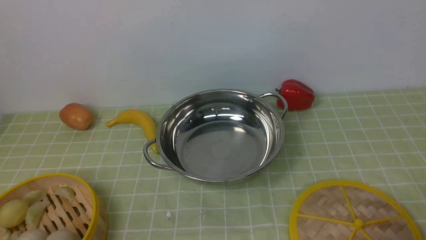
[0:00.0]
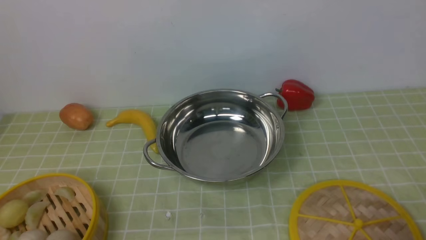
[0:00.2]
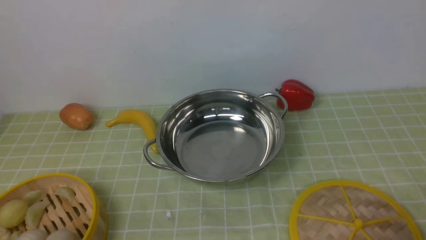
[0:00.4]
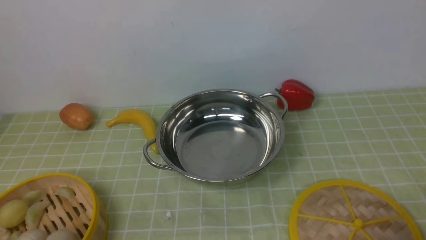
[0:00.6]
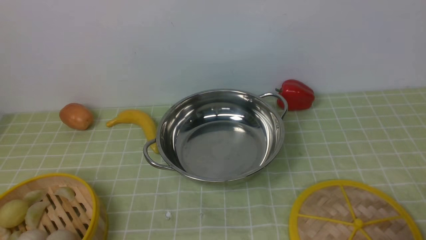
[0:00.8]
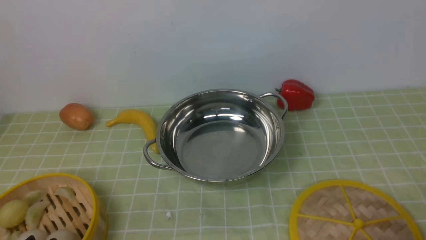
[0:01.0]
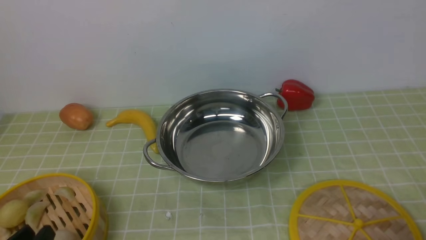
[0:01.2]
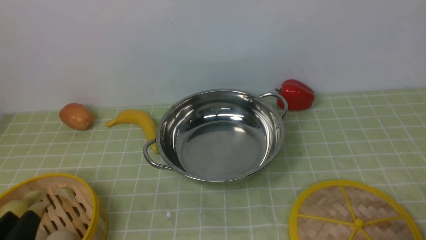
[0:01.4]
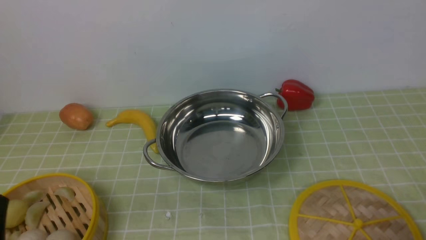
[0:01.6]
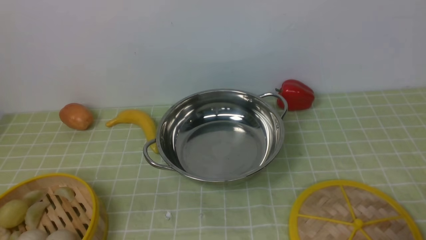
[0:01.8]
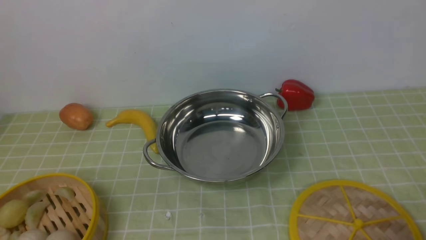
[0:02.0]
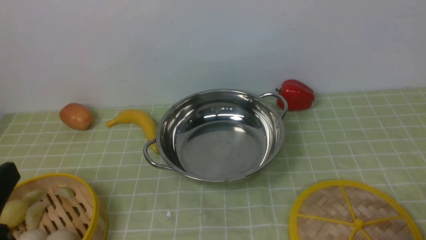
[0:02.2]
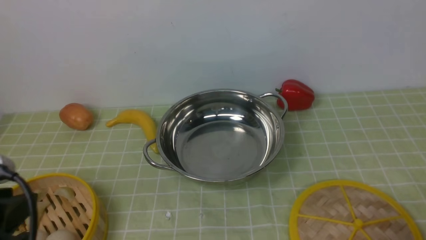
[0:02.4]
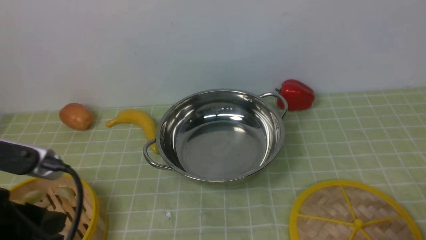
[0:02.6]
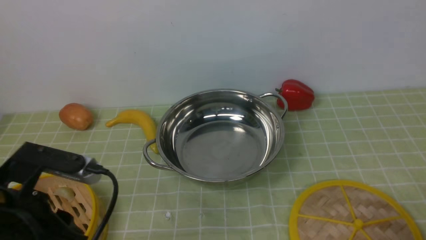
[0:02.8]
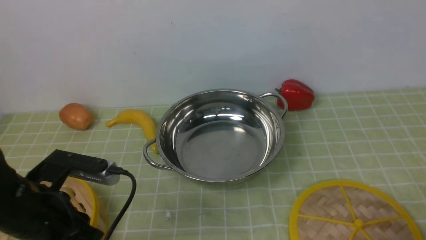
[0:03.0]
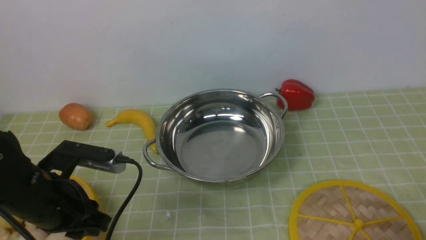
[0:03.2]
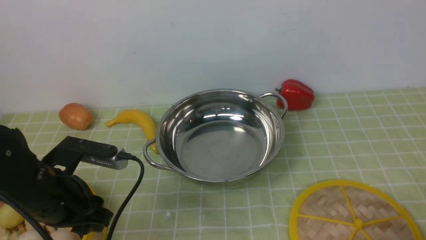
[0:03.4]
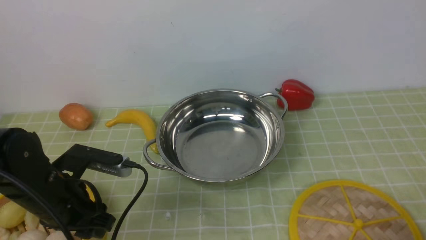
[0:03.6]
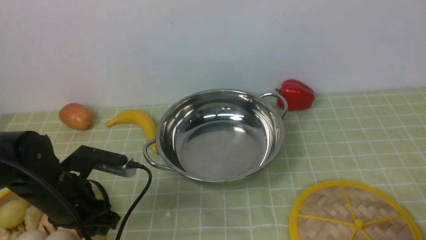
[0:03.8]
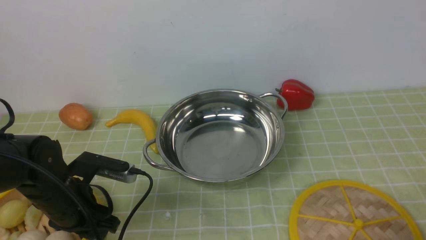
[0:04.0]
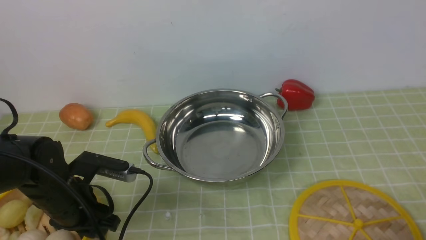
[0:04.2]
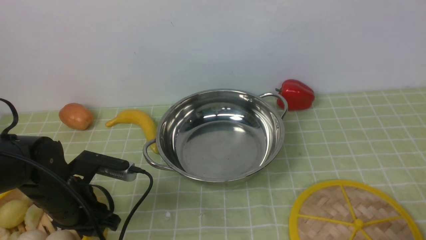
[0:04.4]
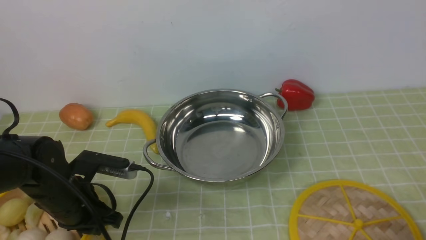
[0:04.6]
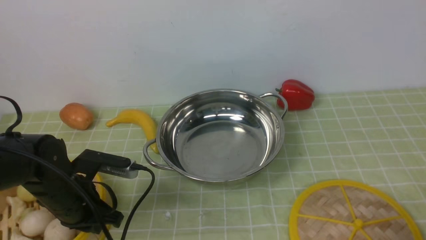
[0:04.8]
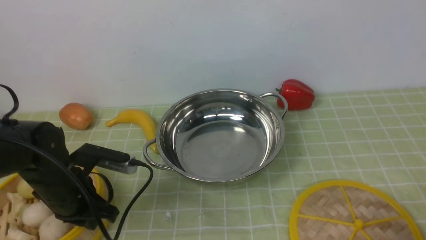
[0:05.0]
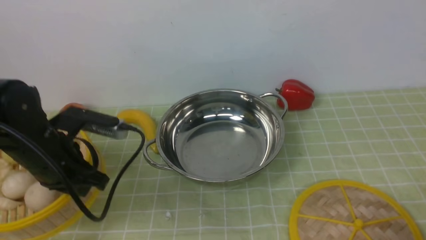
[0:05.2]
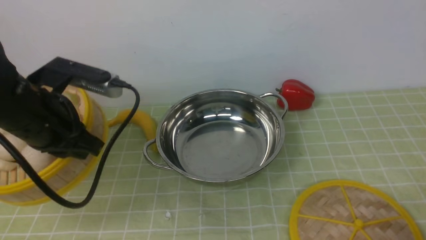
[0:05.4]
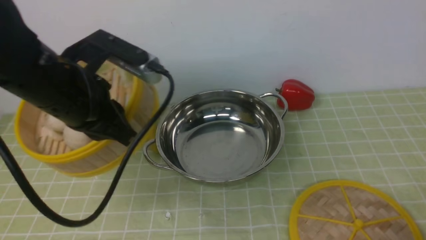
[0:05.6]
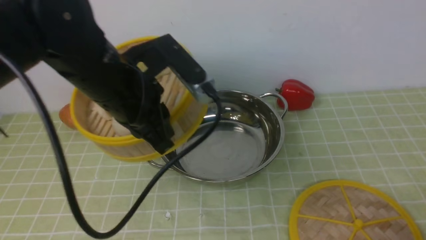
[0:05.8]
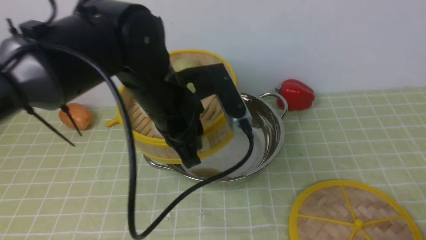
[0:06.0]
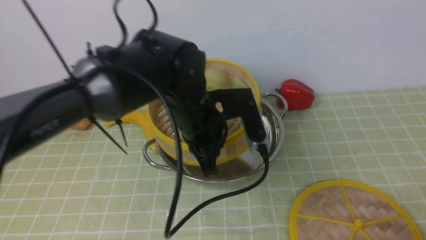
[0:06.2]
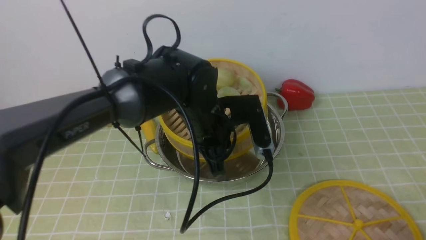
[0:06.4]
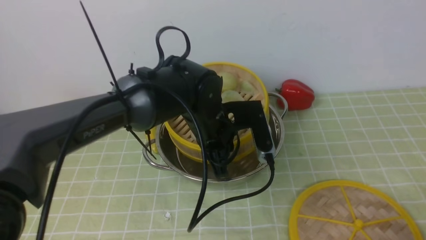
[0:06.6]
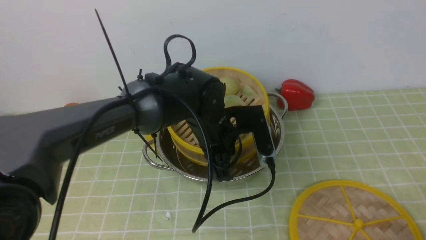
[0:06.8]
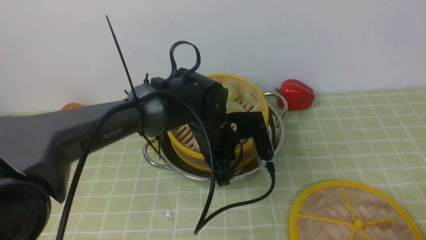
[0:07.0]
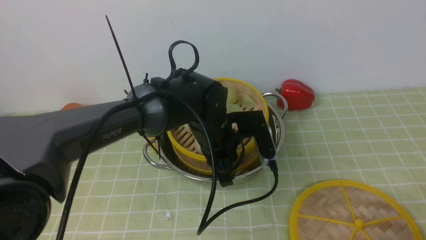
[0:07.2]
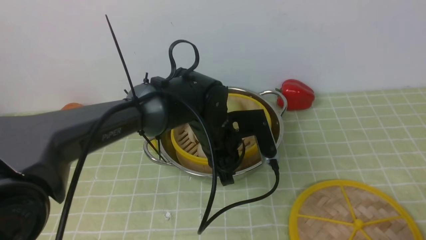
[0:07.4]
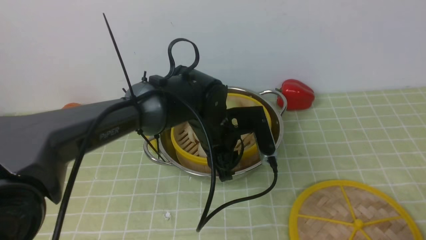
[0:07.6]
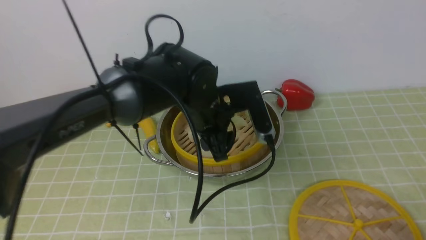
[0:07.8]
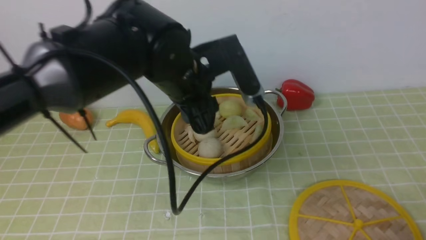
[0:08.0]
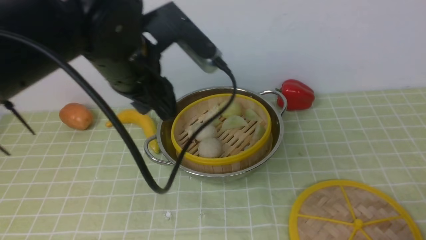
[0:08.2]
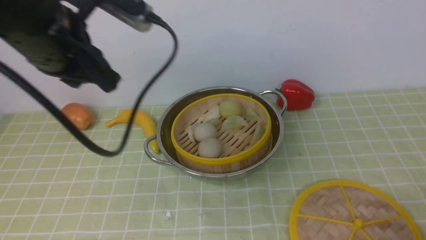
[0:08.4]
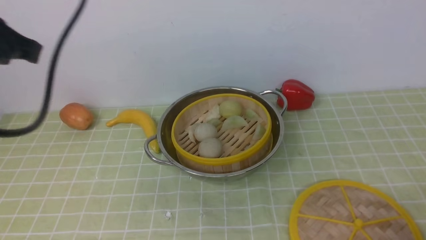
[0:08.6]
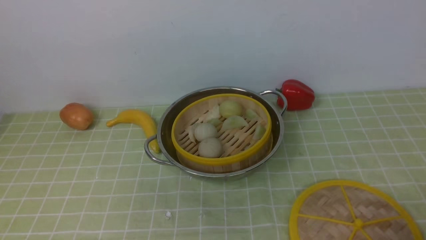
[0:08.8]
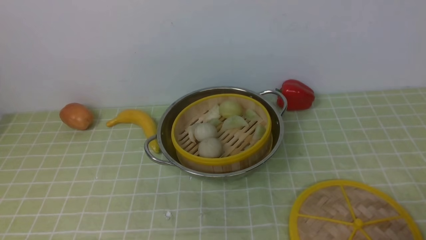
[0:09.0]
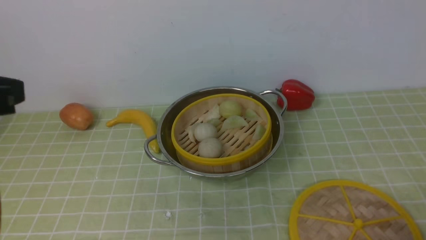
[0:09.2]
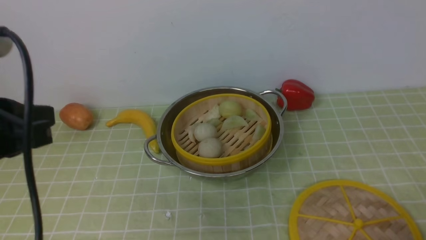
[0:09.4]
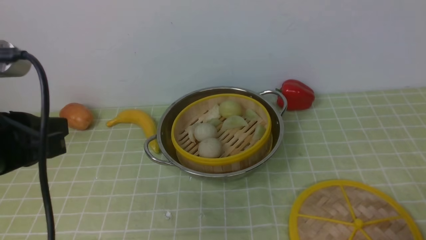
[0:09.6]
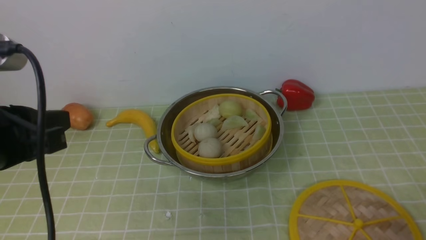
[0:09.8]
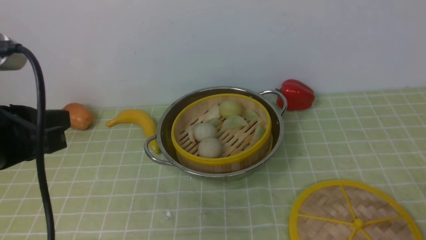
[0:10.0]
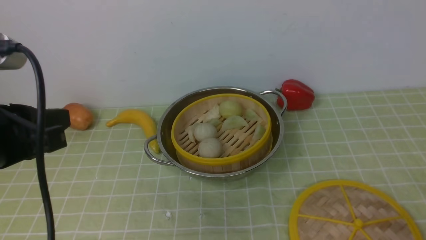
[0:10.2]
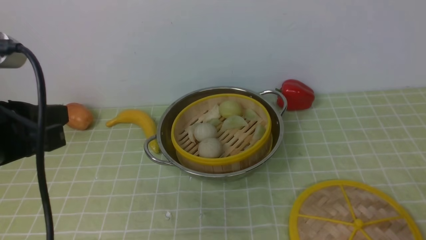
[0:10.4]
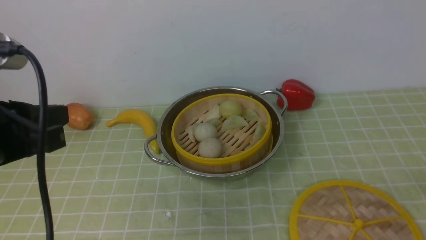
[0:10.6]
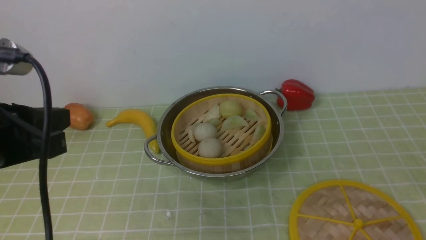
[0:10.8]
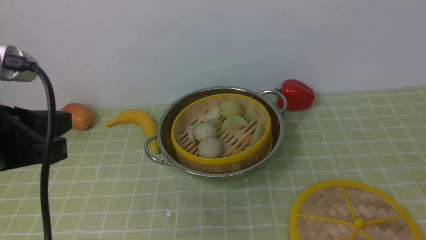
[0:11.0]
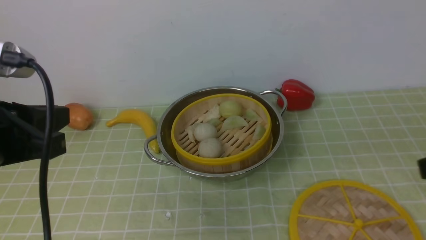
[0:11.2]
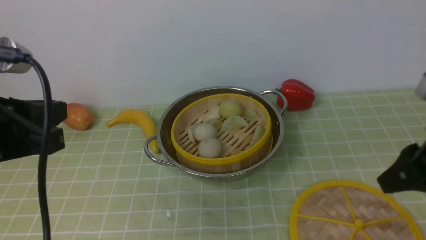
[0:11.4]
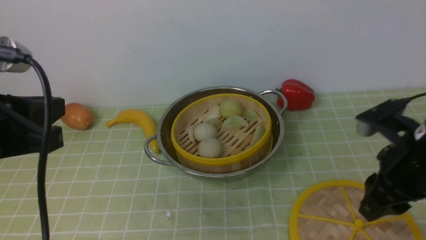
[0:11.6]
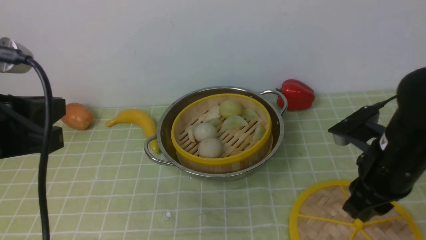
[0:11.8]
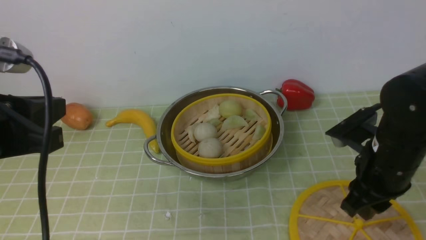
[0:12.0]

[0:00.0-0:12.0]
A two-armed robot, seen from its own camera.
Task of the whole recording: place the steamer in the pot on the green tablecloth, and put the lid on the steamer.
Step, 0:00.0 to 0:05.4: use the left arm to lift the steamer closest to it.
Step, 0:05.6 to 0:08.4: use the left arm to put the steamer into the iron steamer pot in the middle.
0:01.6 to 0:03.0: The left gripper travels forward by about 15 cm.
0:03.0 to 0:04.4: The left gripper moves downward and forward, about 10 cm.
0:04.4 to 0:06.0: The left gripper heads to the right and upward, covering some 20 cm, and closes.
0:06.0 to 0:07.6: The left gripper travels downward by about 10 cm, and opens up.
0:07.6 to 0:09.0: The left gripper shifts some 40 cm upward, to the left and backward, and closes.
0:09.0 to 0:10.4: The left gripper heads downward, covering approximately 10 cm.
0:10.4 to 0:12.0: The right gripper moves forward and to the left, some 25 cm.

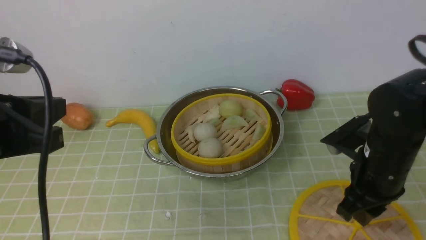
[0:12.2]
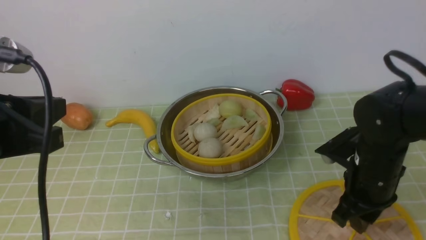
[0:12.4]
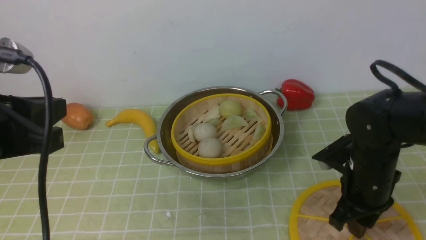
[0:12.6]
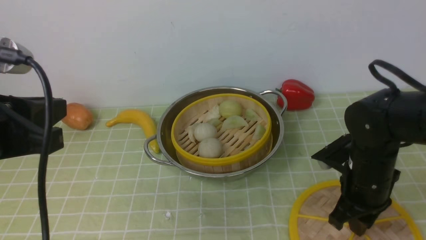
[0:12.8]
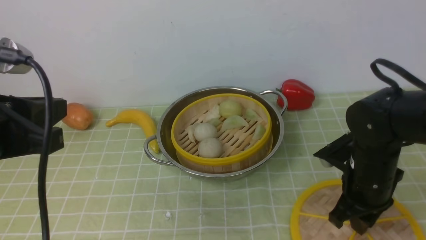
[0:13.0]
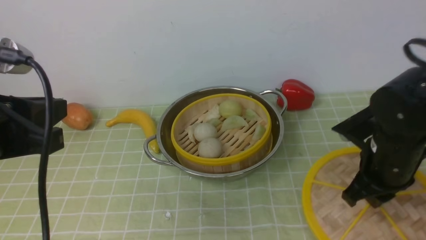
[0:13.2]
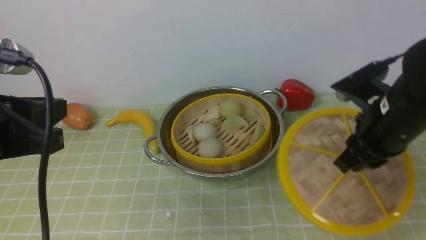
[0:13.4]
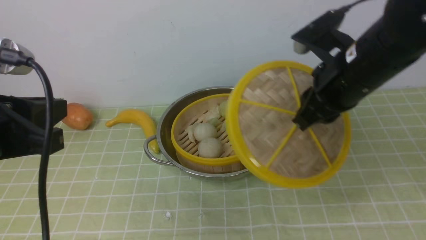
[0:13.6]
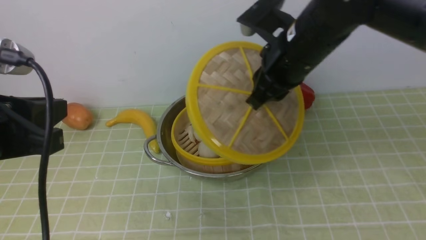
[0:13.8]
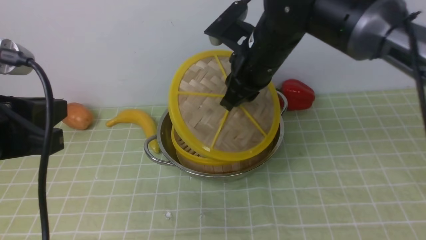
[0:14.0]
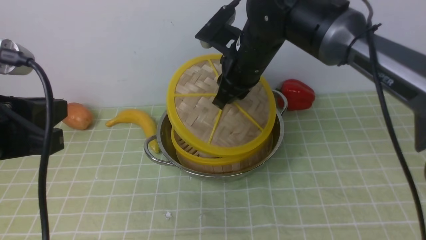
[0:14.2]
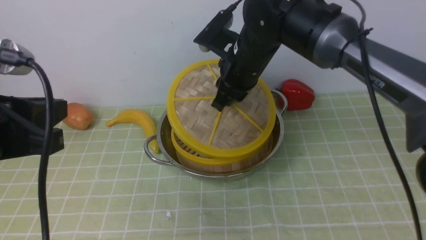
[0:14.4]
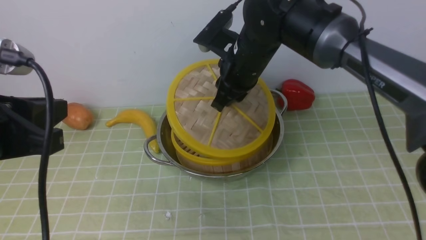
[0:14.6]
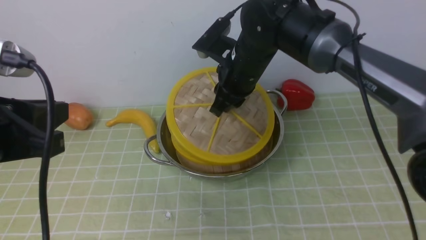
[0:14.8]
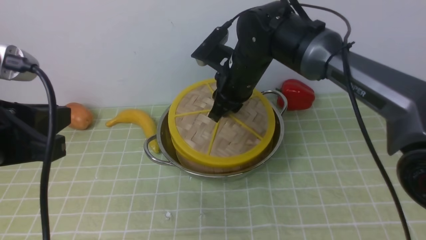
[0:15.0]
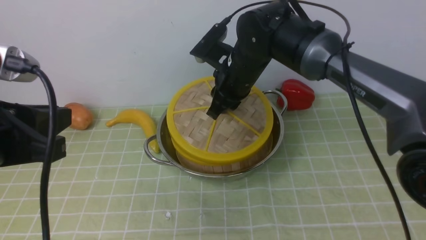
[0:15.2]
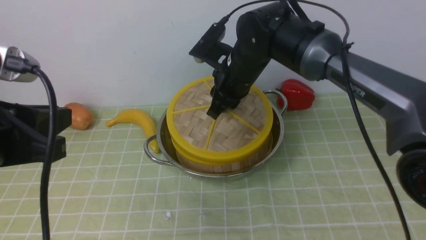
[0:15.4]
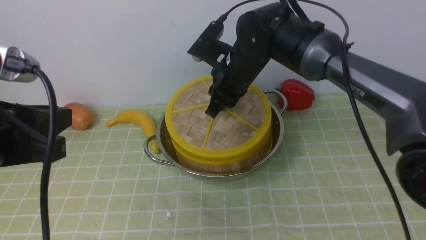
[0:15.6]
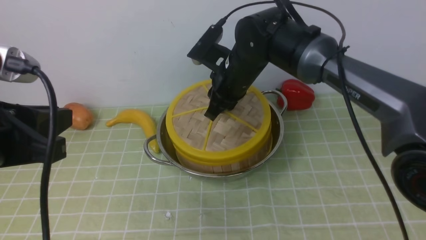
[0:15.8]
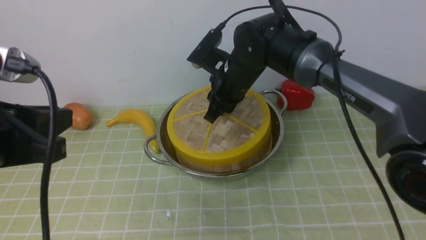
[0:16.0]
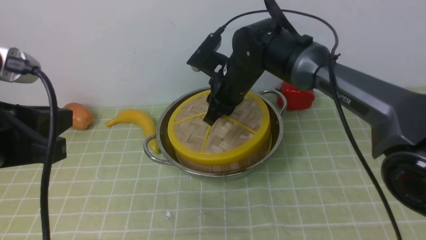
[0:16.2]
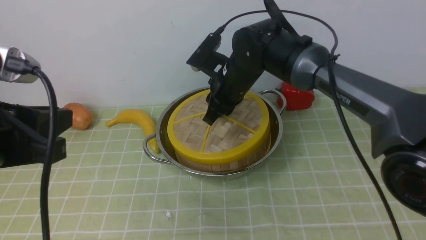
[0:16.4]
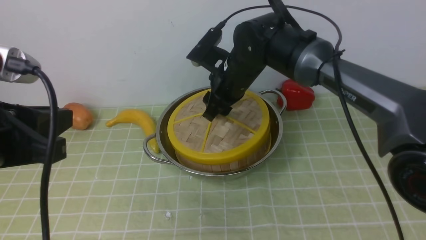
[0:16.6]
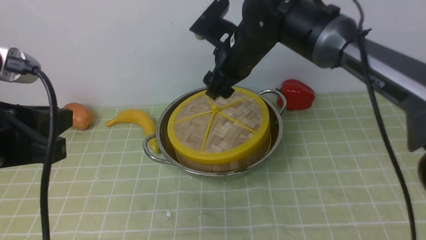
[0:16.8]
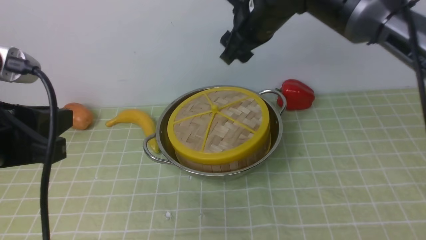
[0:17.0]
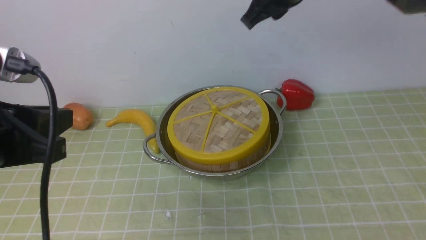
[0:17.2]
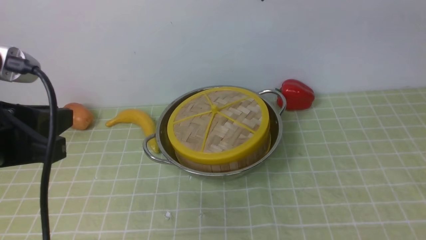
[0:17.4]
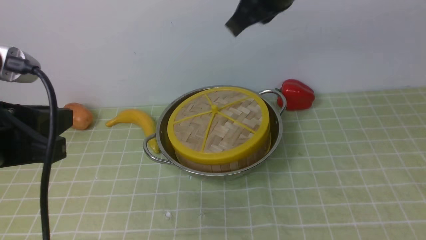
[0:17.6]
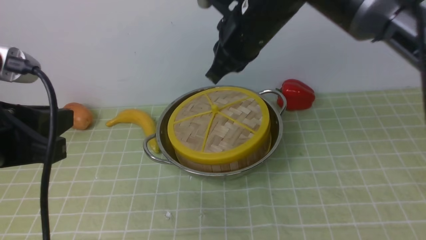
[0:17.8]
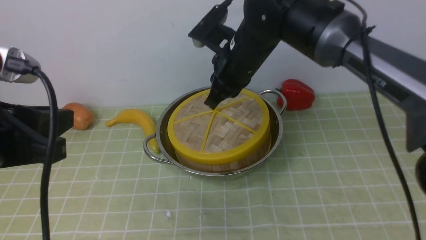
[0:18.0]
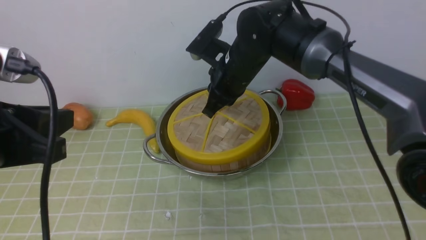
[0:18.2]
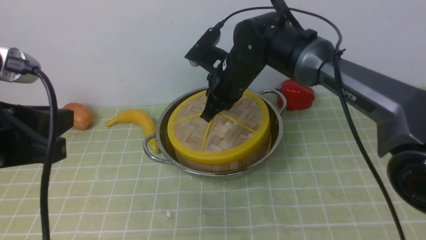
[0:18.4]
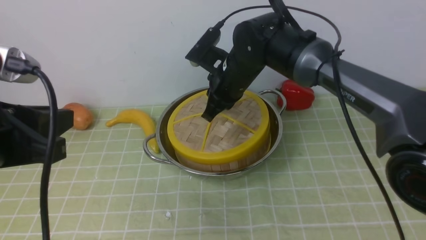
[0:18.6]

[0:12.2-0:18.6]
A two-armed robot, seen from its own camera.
Task of the whole recording: place the steamer in the pot on the green tablecloth, and put the lid on the steamer.
0:12.2 to 0:13.8: The right gripper moves upward, to the left and forward, about 20 cm.
0:13.8 to 0:15.4: The right gripper is displaced downward, forward and to the left by roughly 10 cm.
0:15.4 to 0:17.0: The right gripper shifts about 10 cm upward, and opens up.
0:17.0 to 0:18.6: The right gripper travels downward by roughly 10 cm, and closes up.
